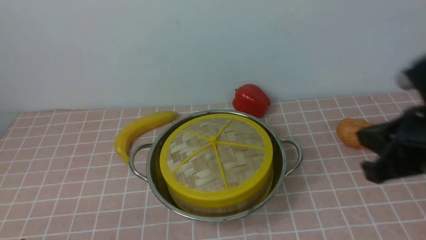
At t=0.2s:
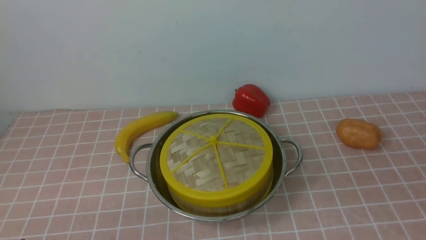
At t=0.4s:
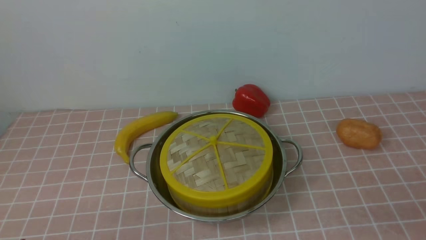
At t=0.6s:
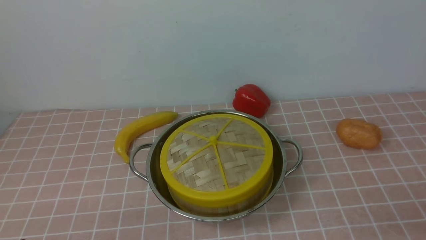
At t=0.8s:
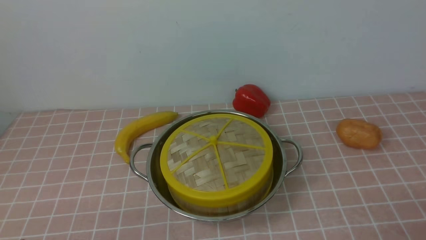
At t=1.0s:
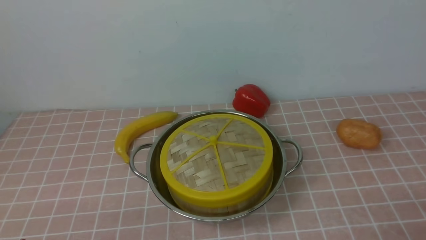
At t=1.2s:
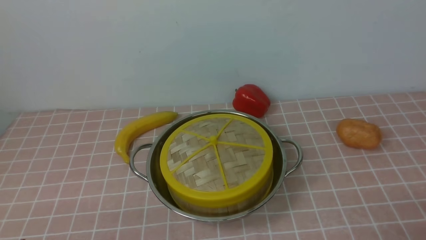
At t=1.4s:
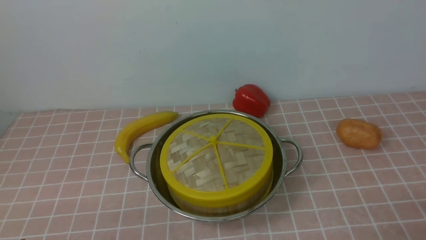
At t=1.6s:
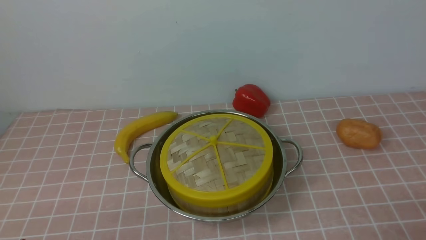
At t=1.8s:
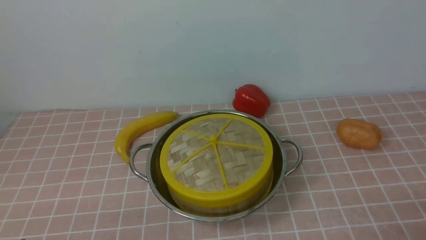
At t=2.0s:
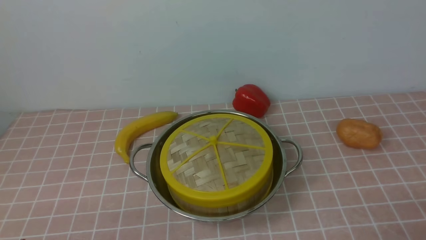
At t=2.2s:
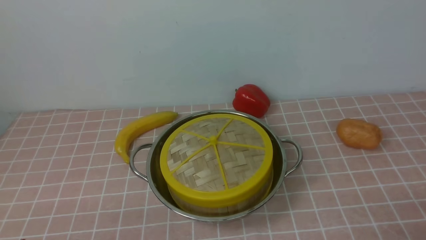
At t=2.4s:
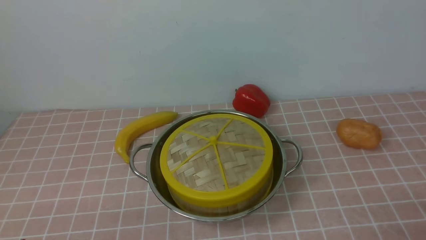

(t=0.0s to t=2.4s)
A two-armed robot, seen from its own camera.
Task of the whole recording: place the steamer in the pot on the pink tablecloth, and put the lid on the steamer.
t=0.0s - t=1.2s: The right gripper moves backward, downward and to the right, roughly 25 cm, and opens.
t=1.2s - t=2.4s: Both grippers stay put.
